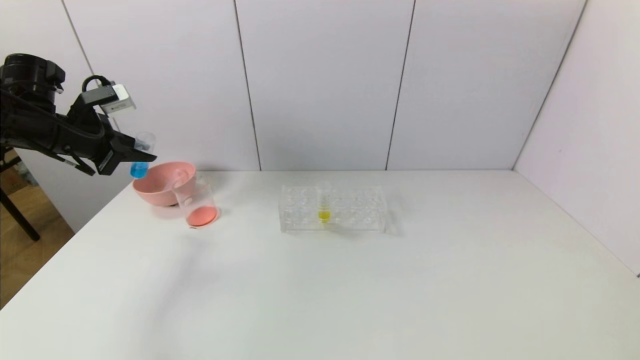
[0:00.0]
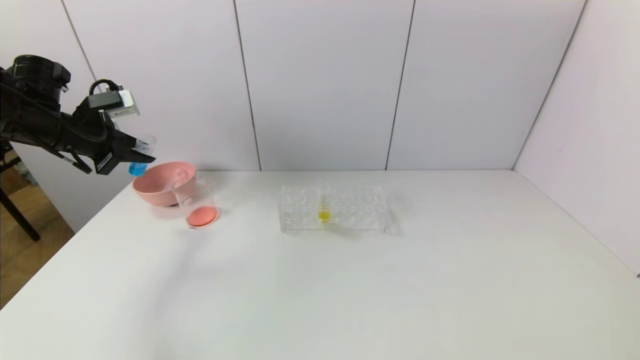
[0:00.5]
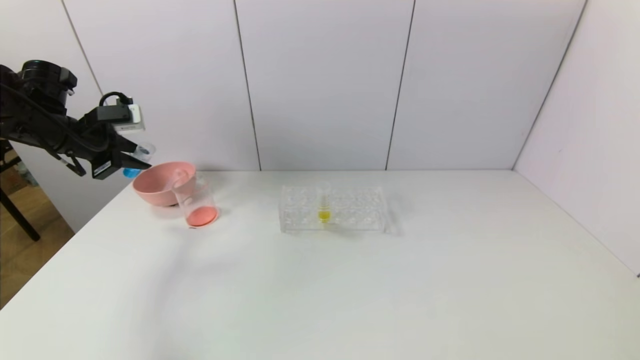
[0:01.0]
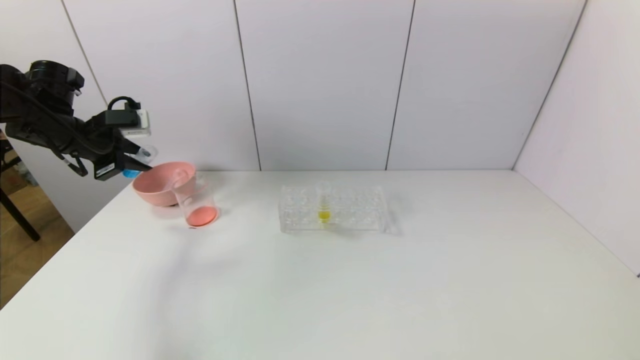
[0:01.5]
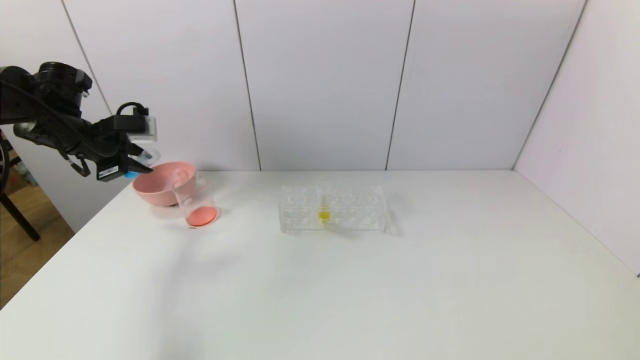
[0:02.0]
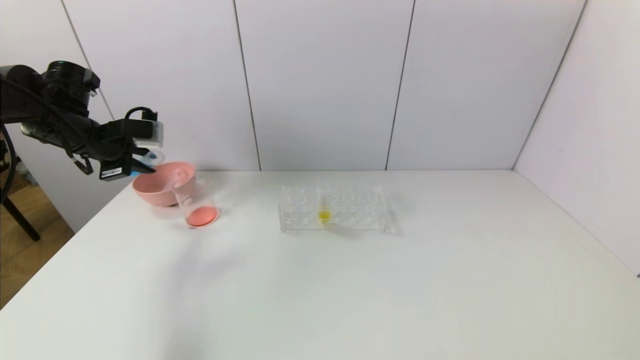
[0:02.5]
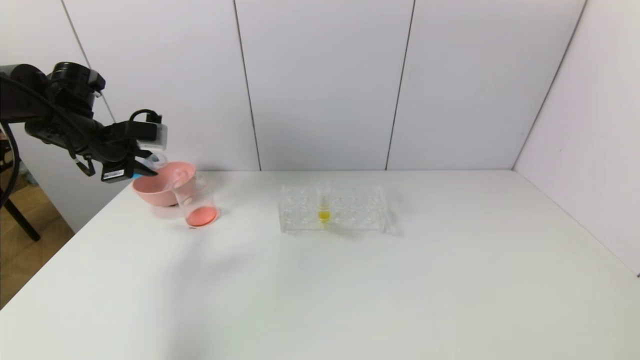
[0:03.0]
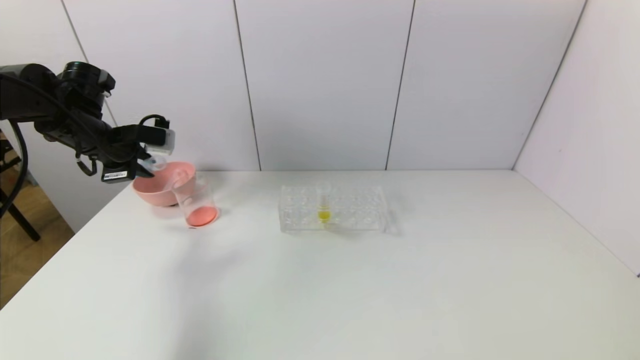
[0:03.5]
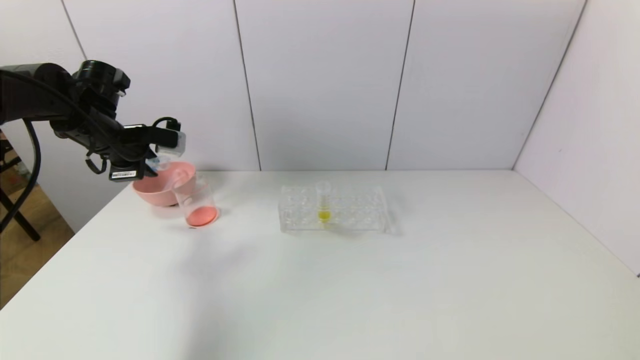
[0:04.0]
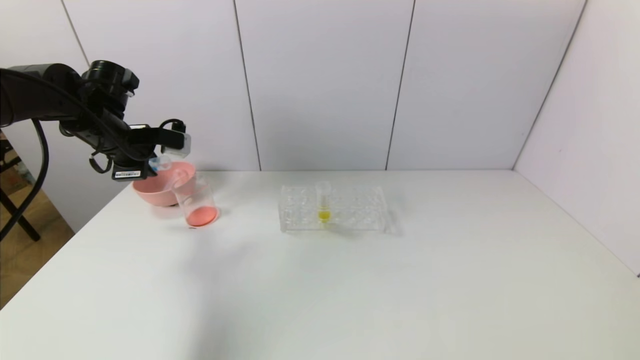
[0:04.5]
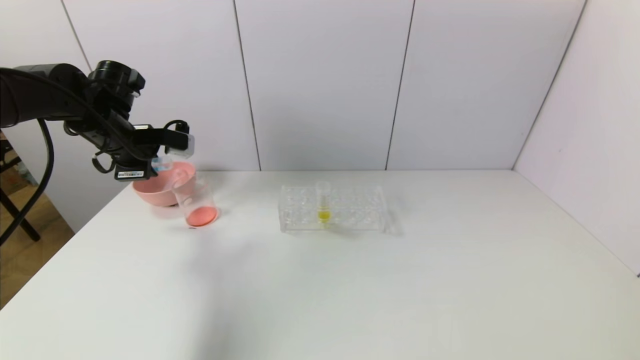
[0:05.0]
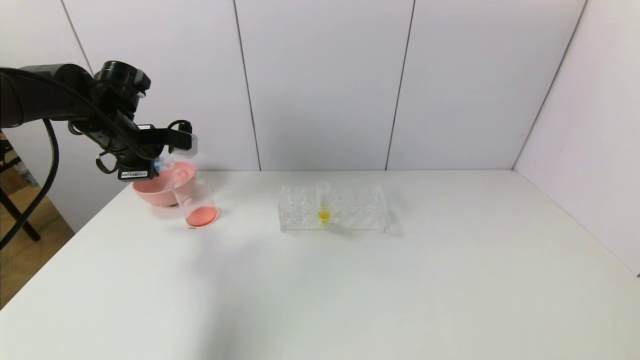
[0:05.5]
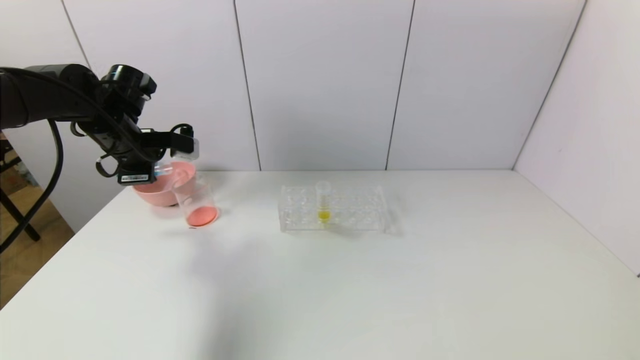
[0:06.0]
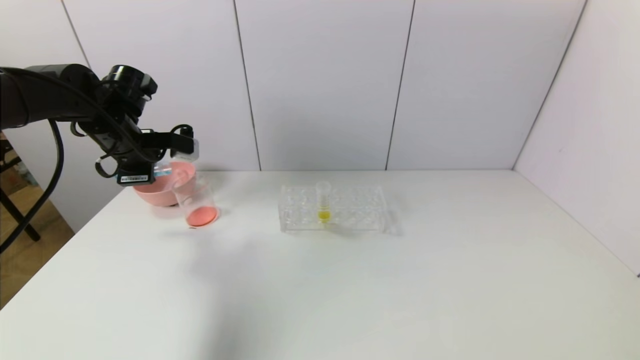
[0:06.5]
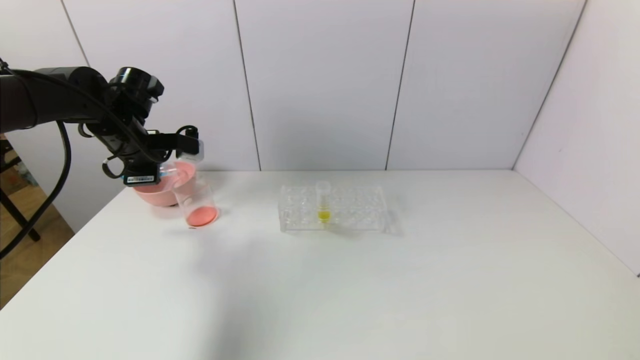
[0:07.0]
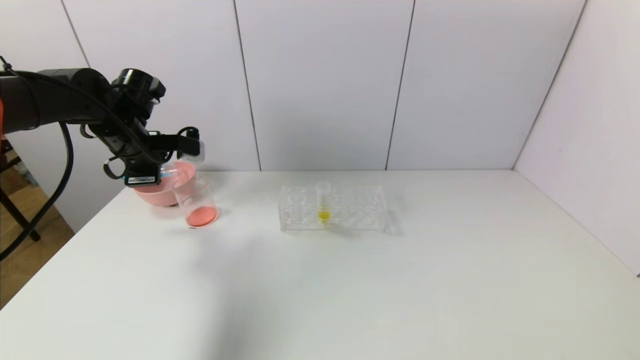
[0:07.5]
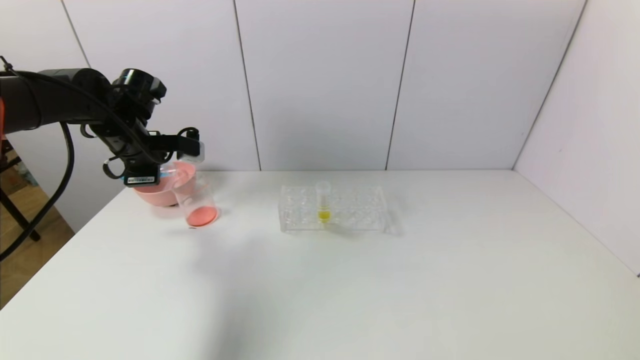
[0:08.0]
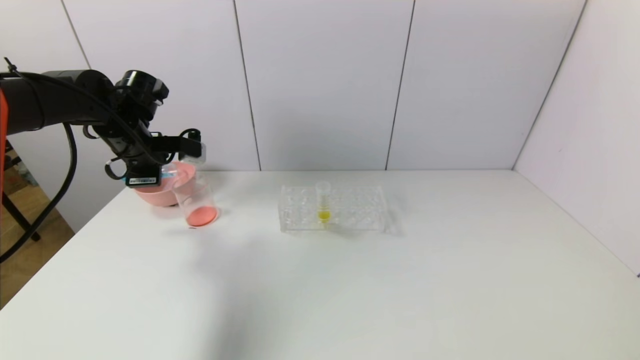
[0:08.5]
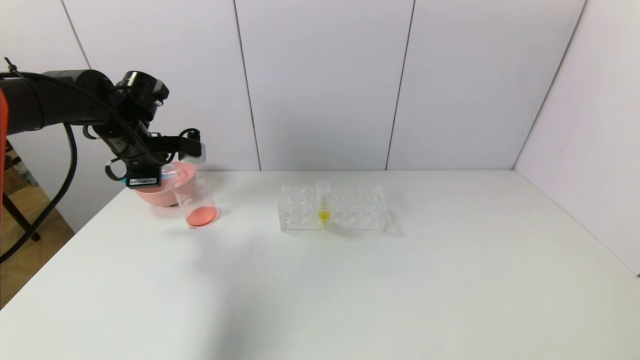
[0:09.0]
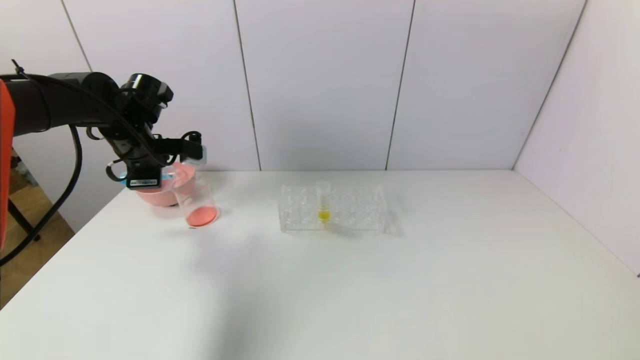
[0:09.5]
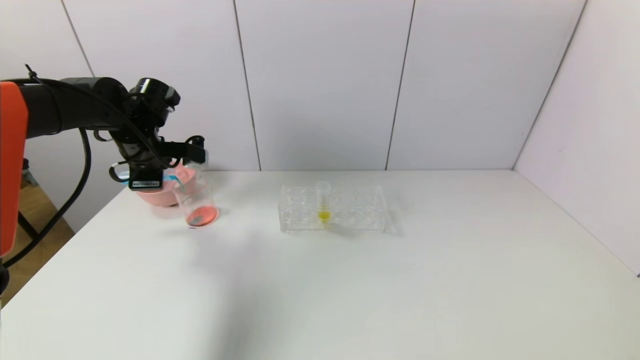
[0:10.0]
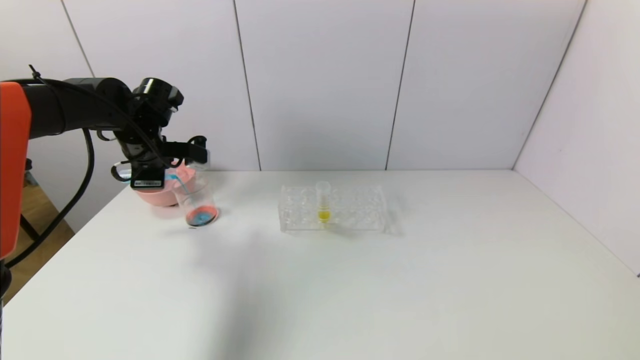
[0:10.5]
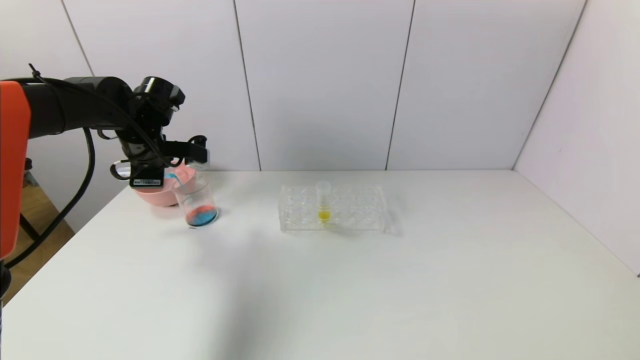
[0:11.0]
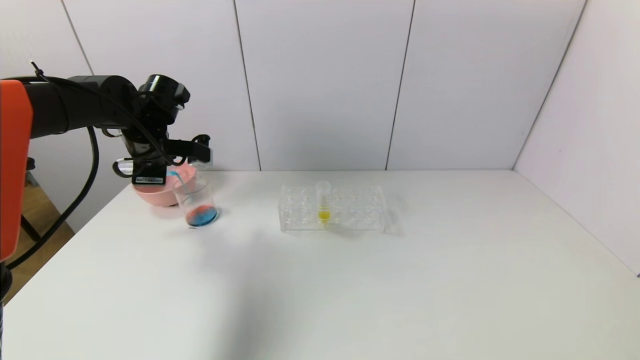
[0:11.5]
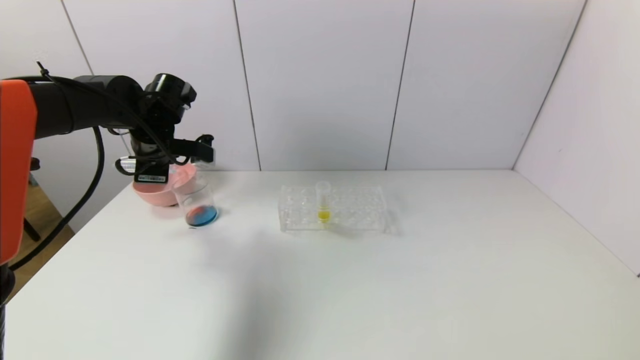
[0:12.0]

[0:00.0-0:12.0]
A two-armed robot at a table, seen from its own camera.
Task of the whole recording: pick up the test tube with red pigment and the test tube with blue pigment by grippers and pour them into the container.
0:02.0 to 0:04.0: The grippers move only a little.
0:04.0 to 0:06.0: The grippers stay close to where they were, moving slightly.
0:06.0 to 0:08.0: Neither gripper changes place.
0:08.0 to 0:12.0: The grippers make only small movements.

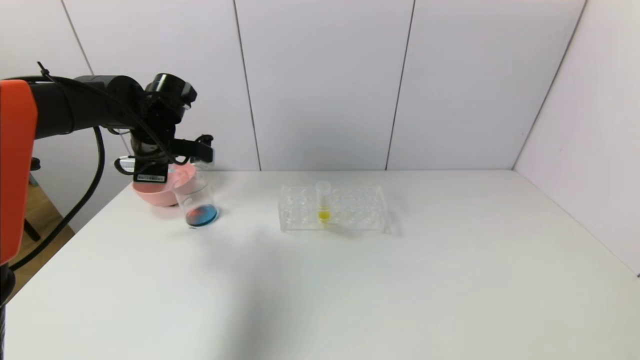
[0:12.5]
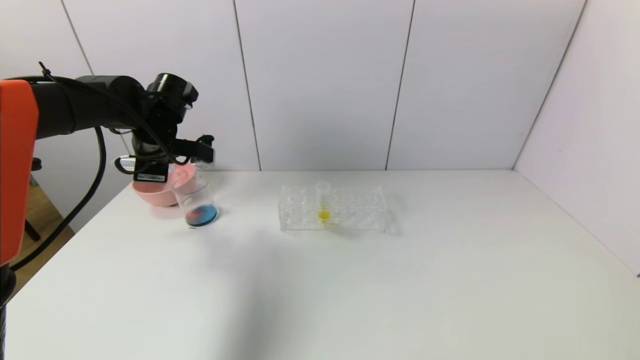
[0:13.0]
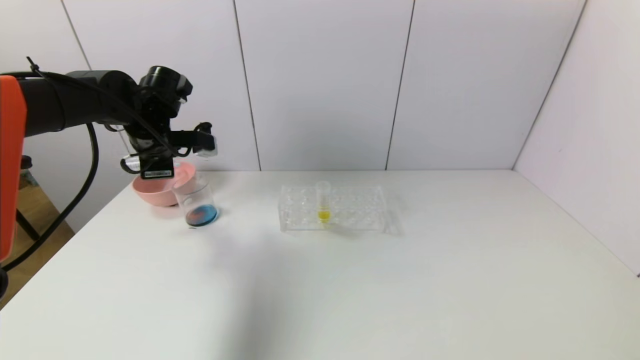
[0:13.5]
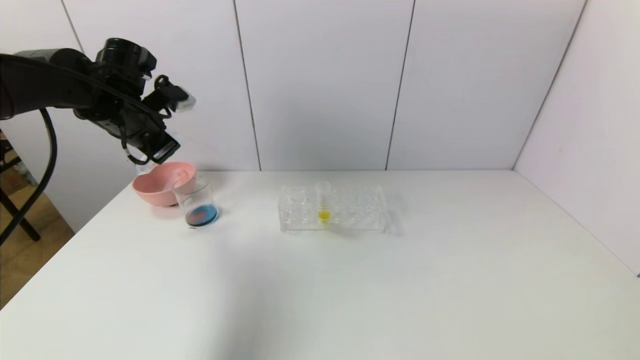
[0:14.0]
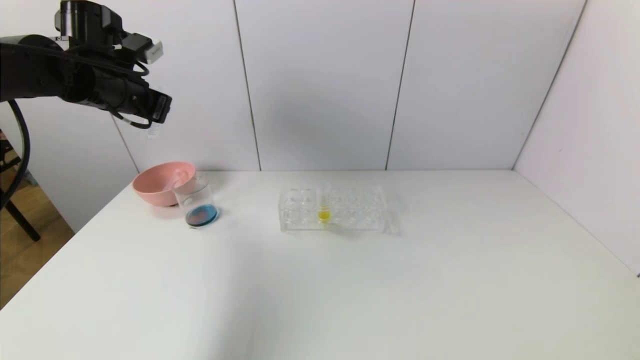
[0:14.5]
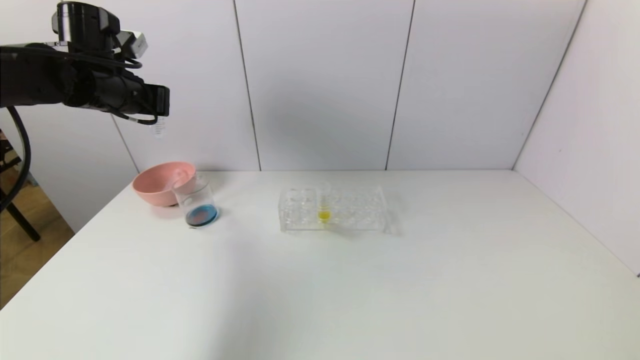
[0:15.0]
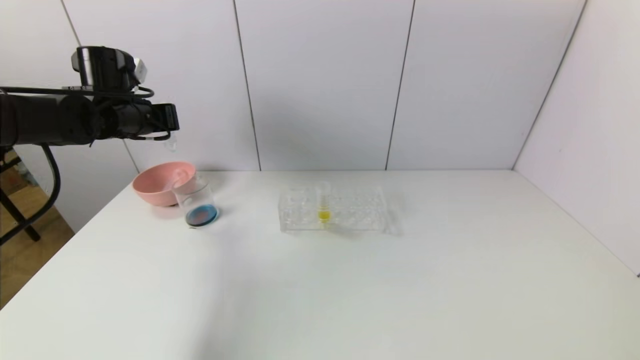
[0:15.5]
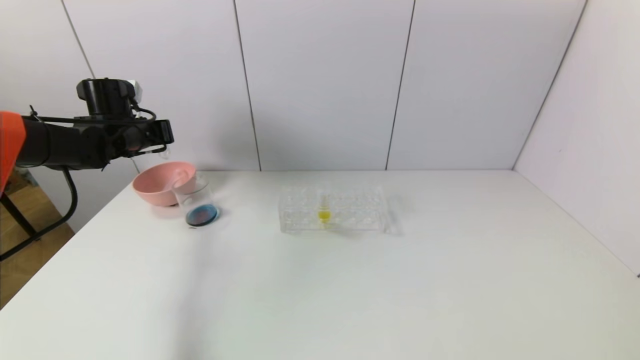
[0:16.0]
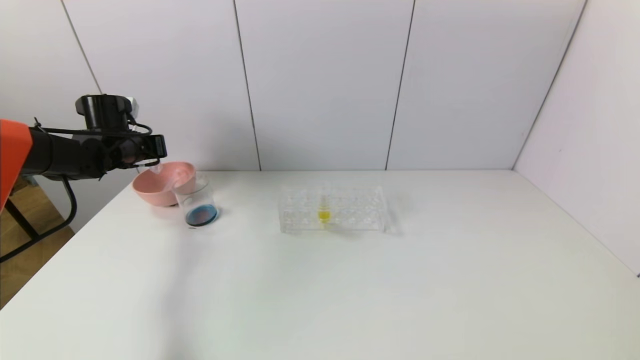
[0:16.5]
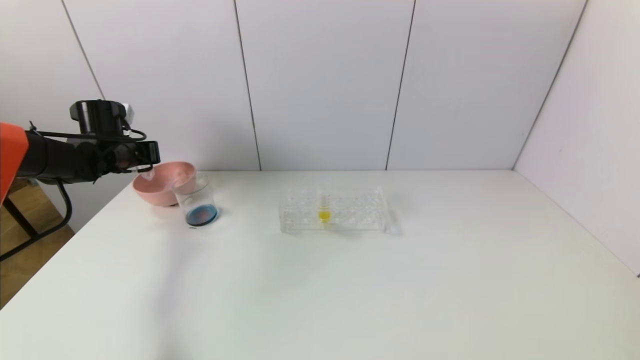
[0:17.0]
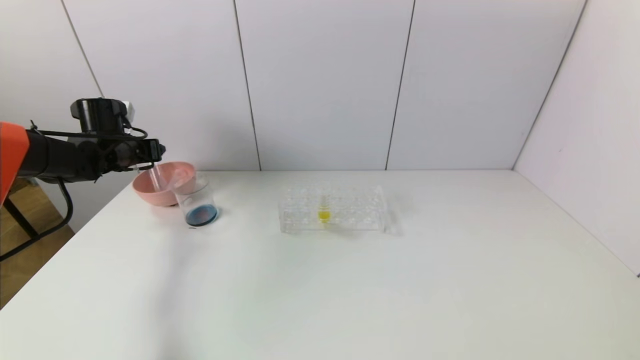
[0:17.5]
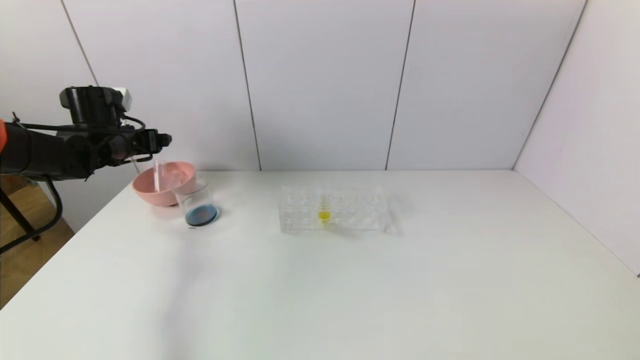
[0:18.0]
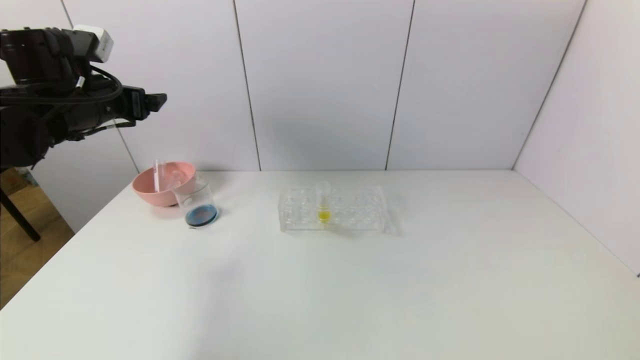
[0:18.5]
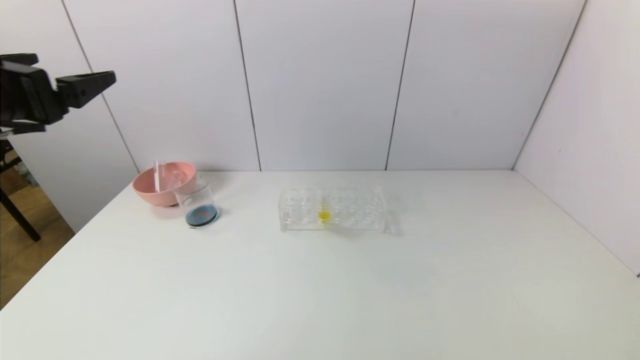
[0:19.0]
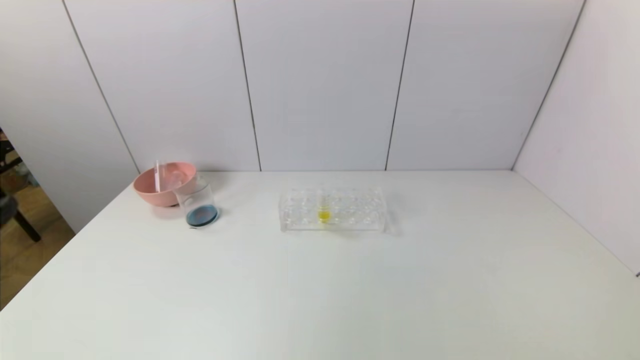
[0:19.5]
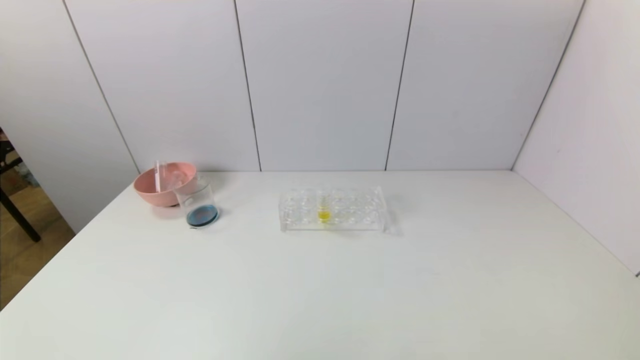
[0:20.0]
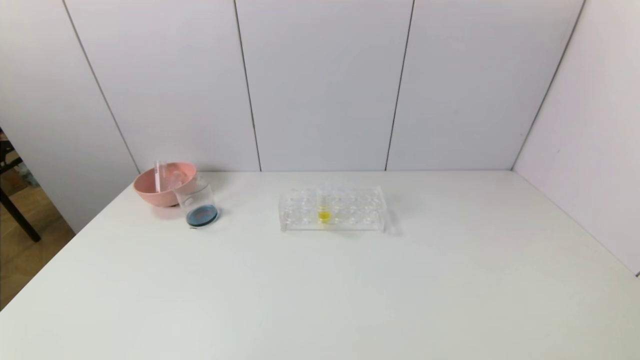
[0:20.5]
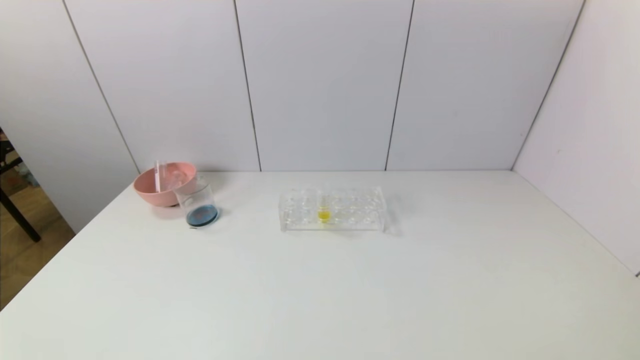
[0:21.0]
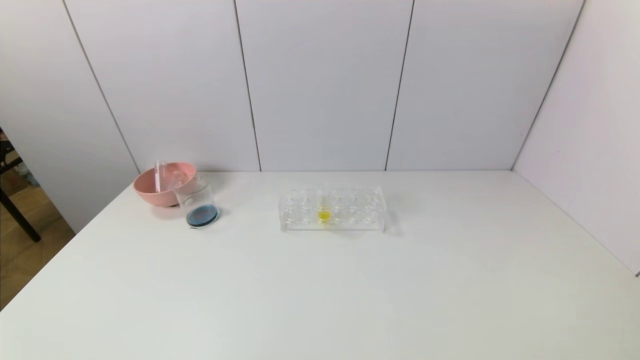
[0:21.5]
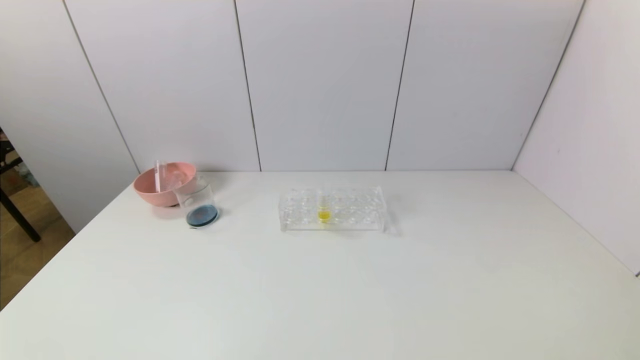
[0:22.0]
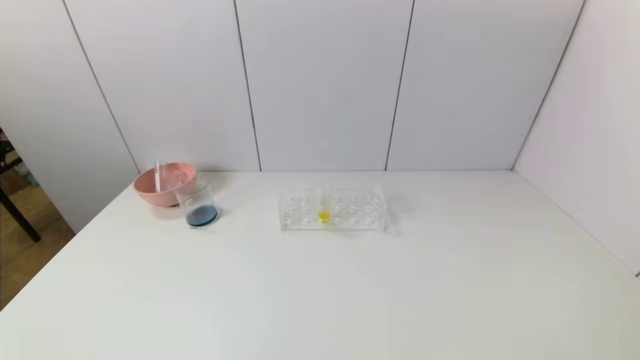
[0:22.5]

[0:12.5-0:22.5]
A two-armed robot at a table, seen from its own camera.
Task of the whole recording: pick up the test tube with red pigment and the test tube with blue pigment by grippers and pour them into the container.
Step, 0:12.5 to 0:14.5: Pour the blue reagent into the graduated cylinder with the left gripper.
Step, 0:15.0 to 0:18.5: Place the test tube into the bowl with the left gripper.
0:12.5 to 0:14.5: The left gripper shifts about 10 cm upward.
0:14.5 to 0:16.5: The left gripper travels downward, to the left and forward by about 15 cm.
0:16.5 to 0:18.5: The left gripper heads upward and backward, covering roughly 15 cm, and opens up.
0:18.5 to 0:20.5: The left gripper shifts approximately 40 cm backward and downward.
